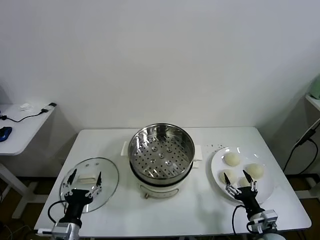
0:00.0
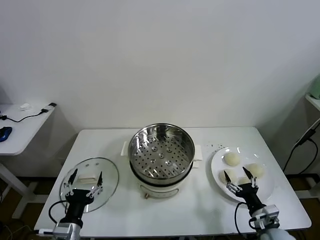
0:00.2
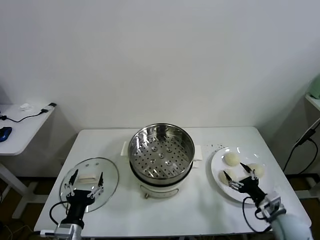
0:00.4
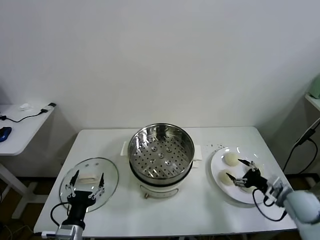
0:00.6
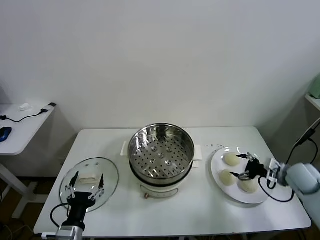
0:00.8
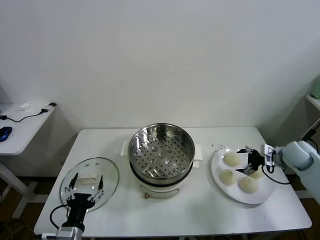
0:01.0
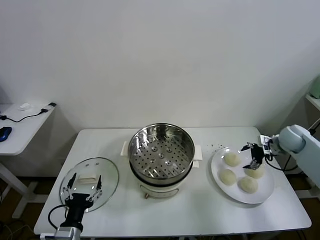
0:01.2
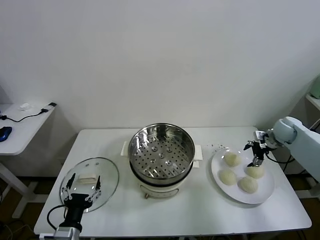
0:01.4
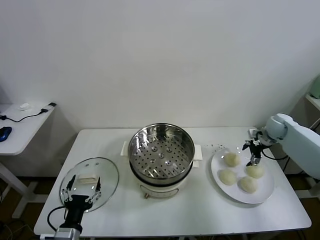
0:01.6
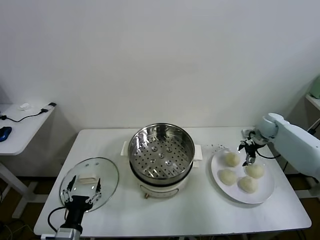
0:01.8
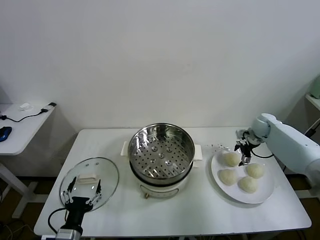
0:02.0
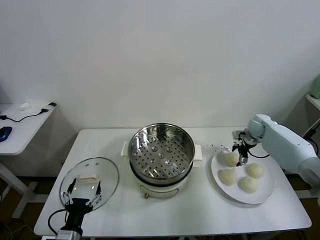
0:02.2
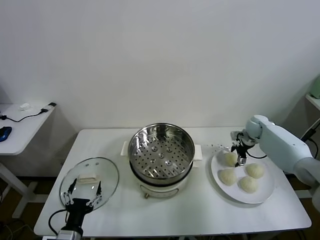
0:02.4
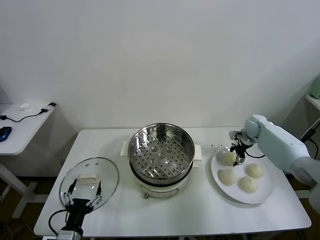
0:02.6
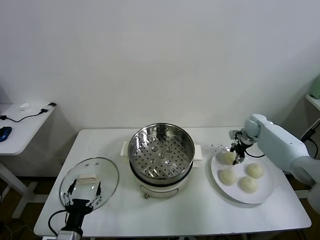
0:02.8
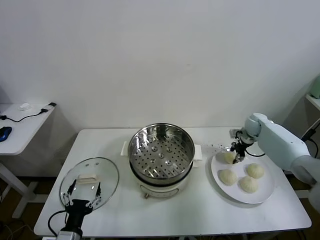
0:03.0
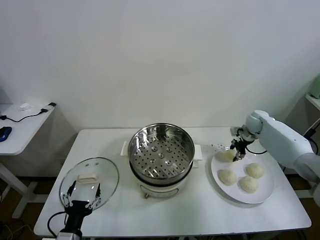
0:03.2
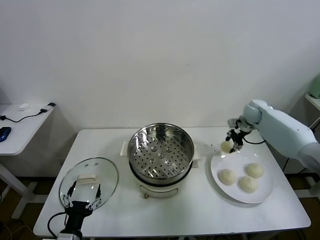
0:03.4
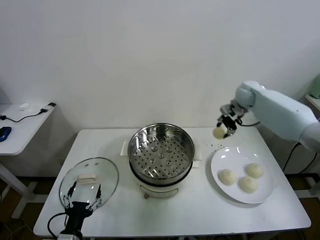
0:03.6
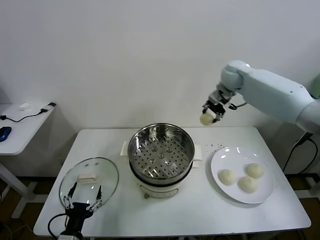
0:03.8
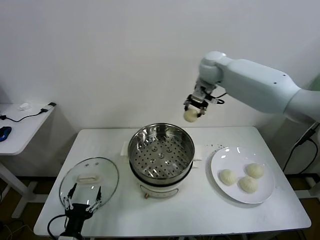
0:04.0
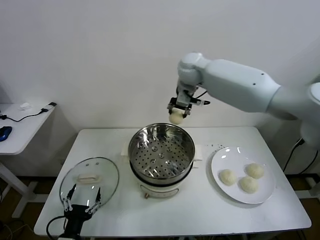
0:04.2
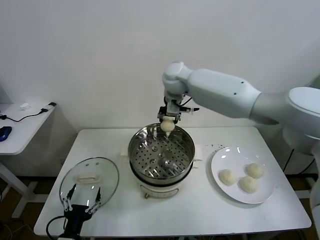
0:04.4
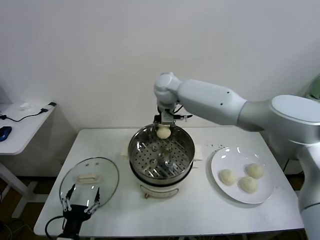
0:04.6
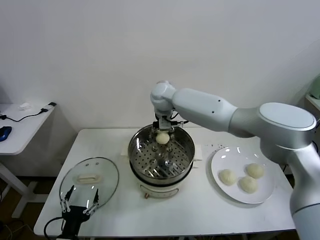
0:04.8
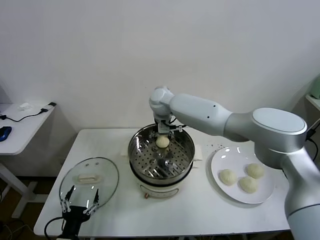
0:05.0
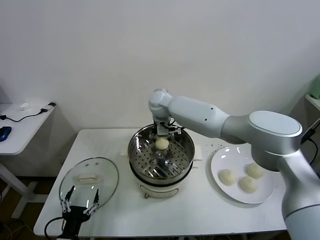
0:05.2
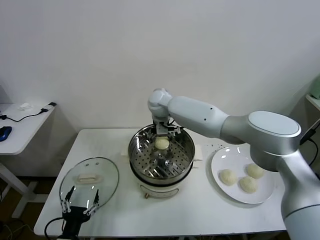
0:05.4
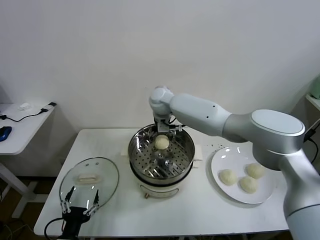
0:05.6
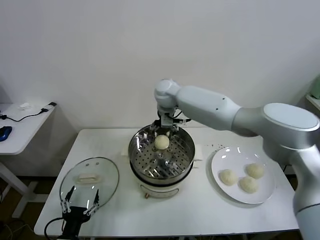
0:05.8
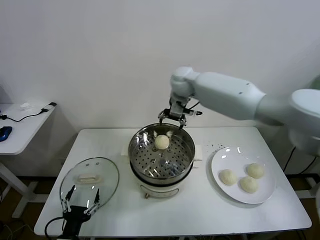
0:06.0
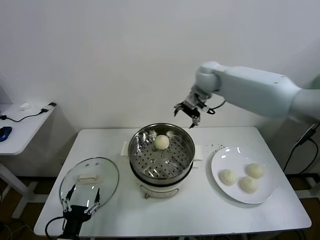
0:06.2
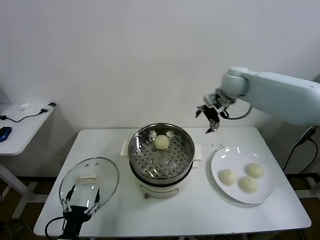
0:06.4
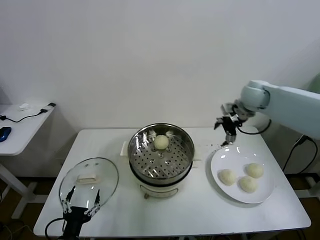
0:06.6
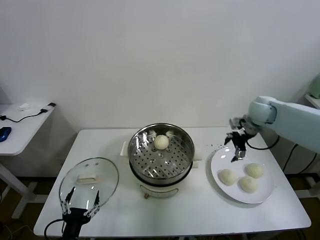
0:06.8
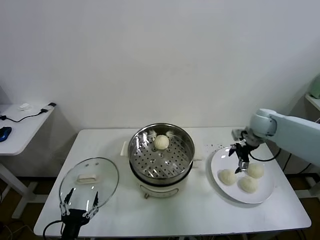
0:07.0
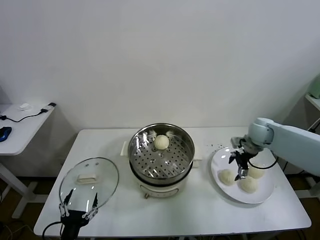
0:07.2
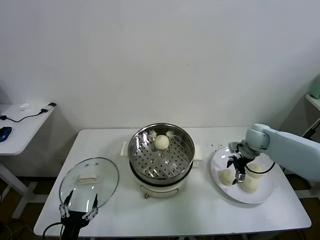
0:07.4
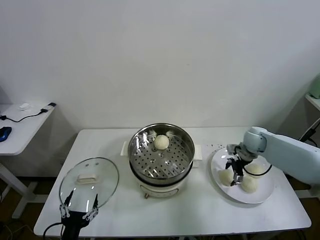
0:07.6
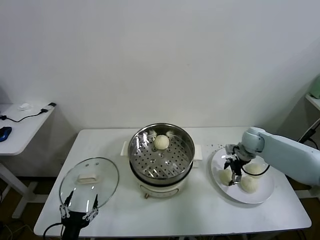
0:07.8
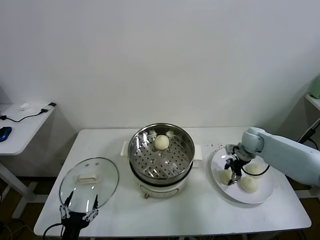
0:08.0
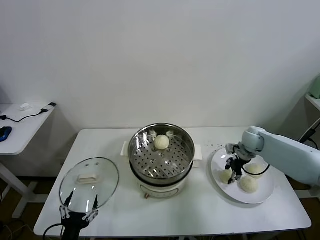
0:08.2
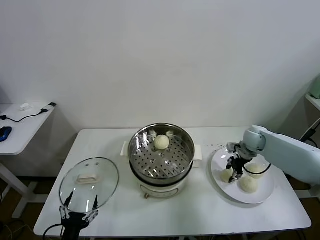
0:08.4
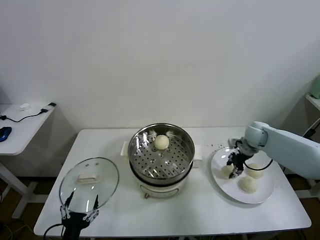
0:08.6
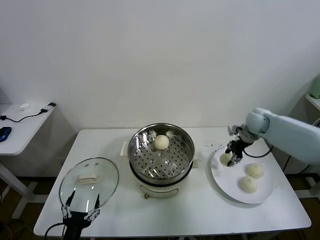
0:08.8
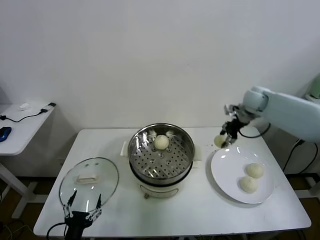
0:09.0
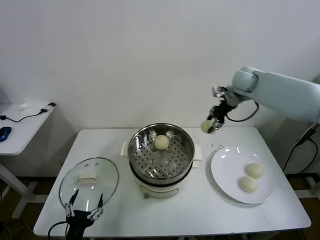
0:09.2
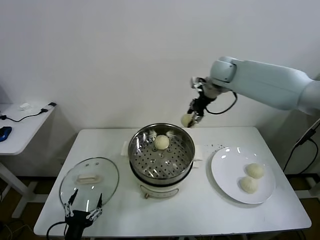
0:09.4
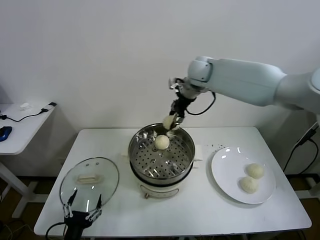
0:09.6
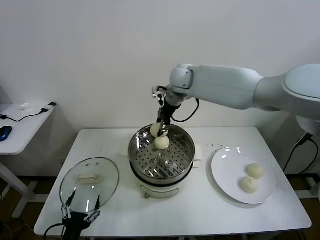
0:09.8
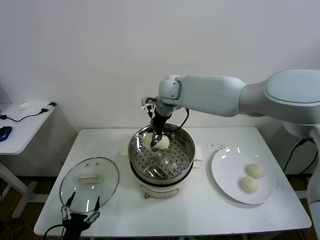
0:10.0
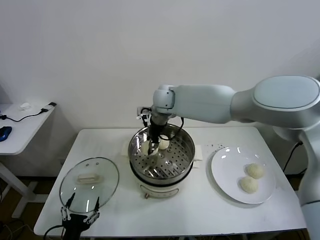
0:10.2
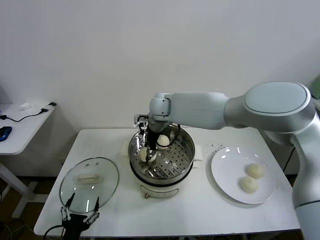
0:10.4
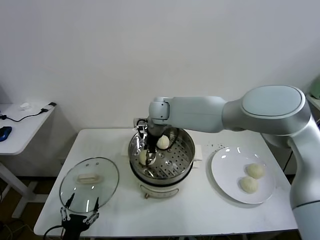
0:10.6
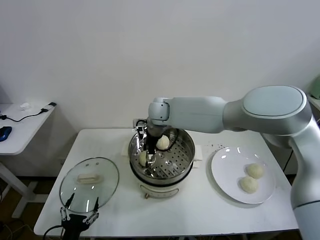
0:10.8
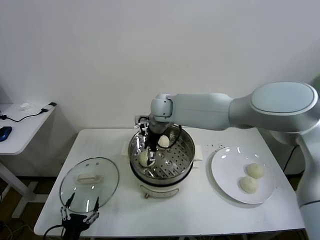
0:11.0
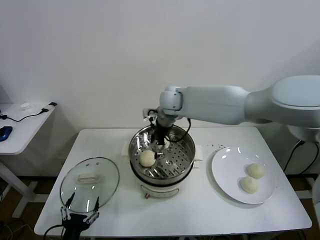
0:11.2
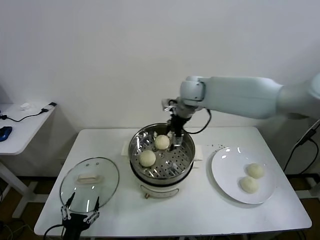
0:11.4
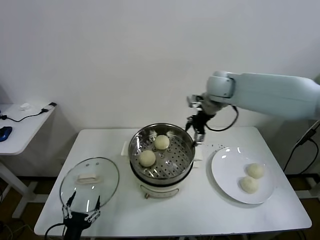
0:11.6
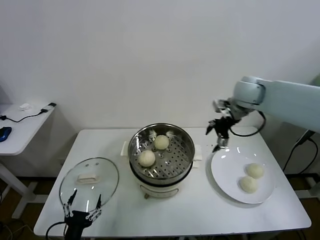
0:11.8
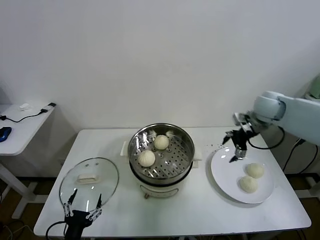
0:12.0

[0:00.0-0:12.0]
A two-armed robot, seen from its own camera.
Task of the whole recording: take steamed baozi put them in steamer.
Step, 0:00.0 to 0:02.8: Grasp the baozi in the plate with right gripper.
Step, 0:03.0 to 0:05.4: Place the baozi on the steamer with right gripper.
Step, 0:05.6 to 0:08.0: Grasp the baozi in the plate with right gripper.
Step, 0:08.4 to 0:11.2: Place the baozi on the steamer with right gripper.
0:01.6 to 0:03.0: The right gripper changes place by roughly 5 cm, and closes.
0:03.0 to 0:04.4: The right gripper travels to the left and upward by some 40 cm.
0:04.4 to 0:06.0: The right gripper moves to the right, about 10 cm, and opens up.
0:06.0 to 0:07.6: The right gripper travels to the right and downward by roughly 35 cm.
0:07.6 to 0:09.0: The right gripper shifts about 20 cm upward and forward, and closes.
0:09.0 to 0:10.4: The right gripper shifts roughly 35 cm to the left.
0:10.4 to 0:12.0: The right gripper is displaced to the right by approximately 35 cm, and opens.

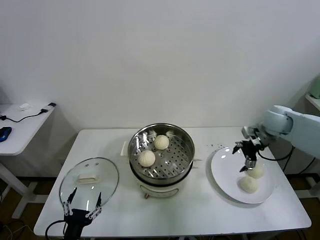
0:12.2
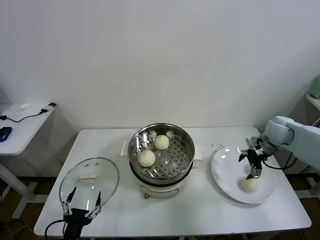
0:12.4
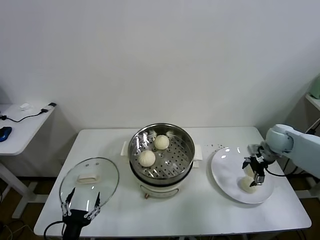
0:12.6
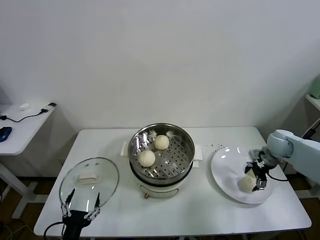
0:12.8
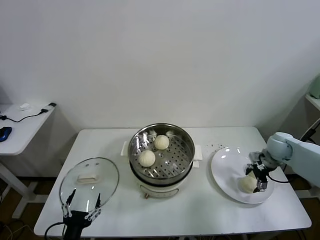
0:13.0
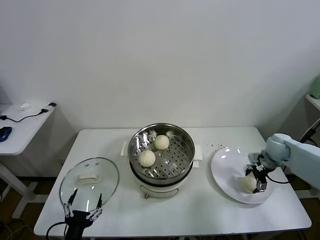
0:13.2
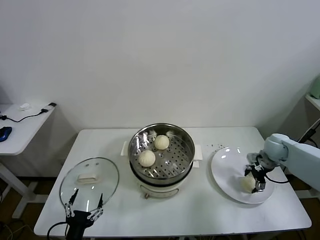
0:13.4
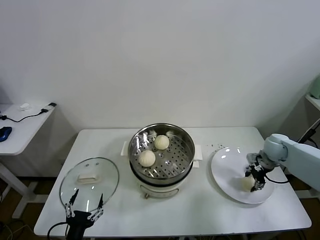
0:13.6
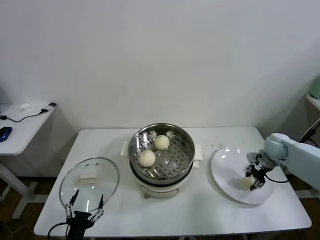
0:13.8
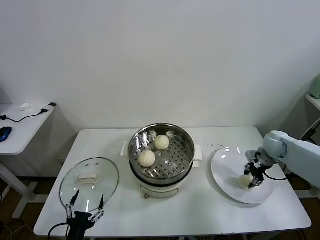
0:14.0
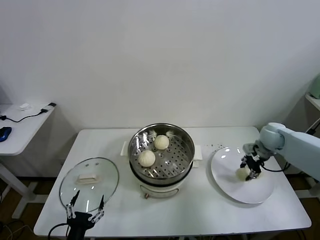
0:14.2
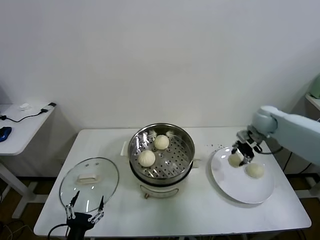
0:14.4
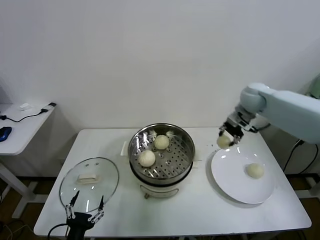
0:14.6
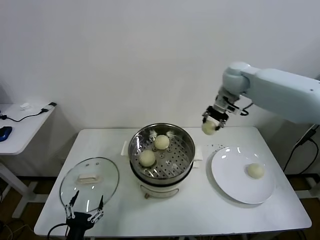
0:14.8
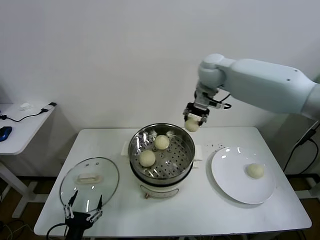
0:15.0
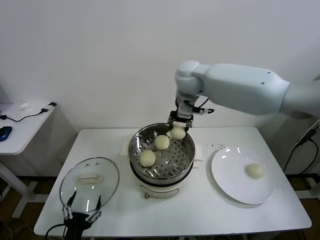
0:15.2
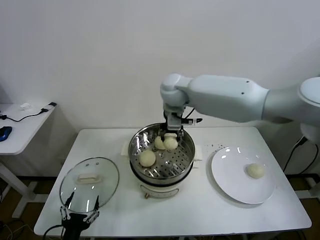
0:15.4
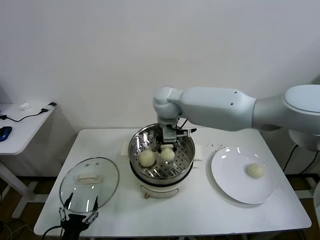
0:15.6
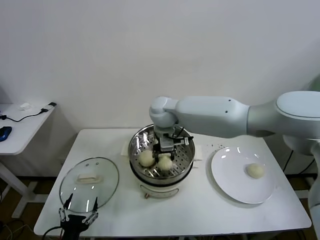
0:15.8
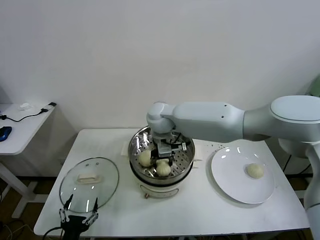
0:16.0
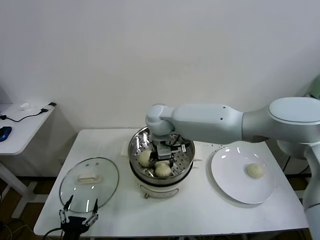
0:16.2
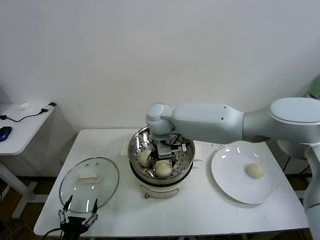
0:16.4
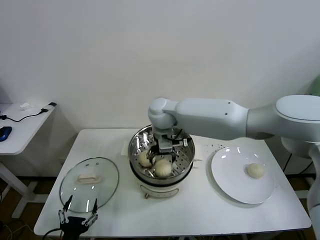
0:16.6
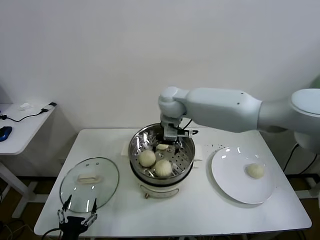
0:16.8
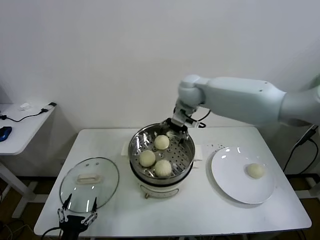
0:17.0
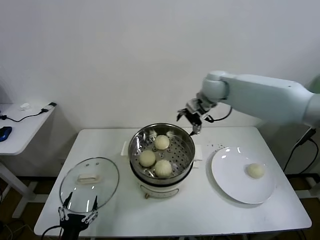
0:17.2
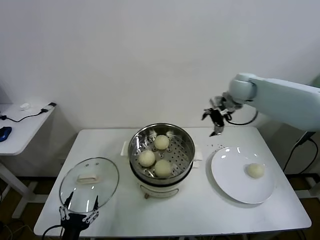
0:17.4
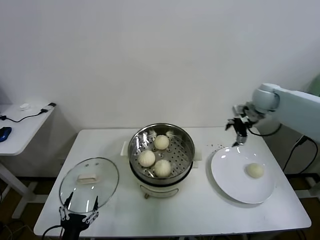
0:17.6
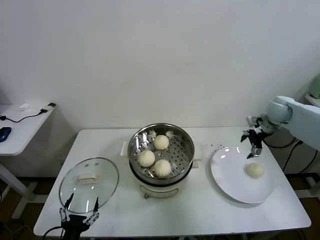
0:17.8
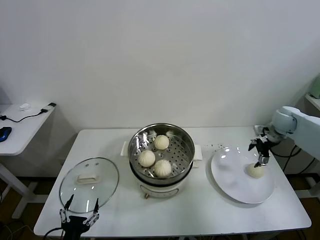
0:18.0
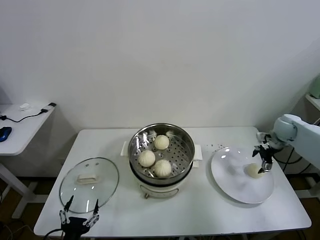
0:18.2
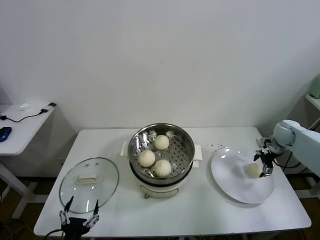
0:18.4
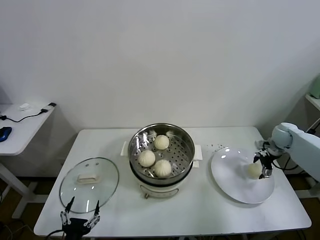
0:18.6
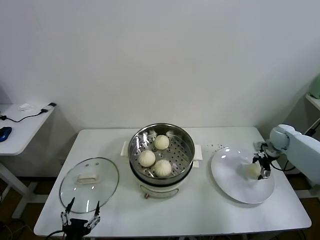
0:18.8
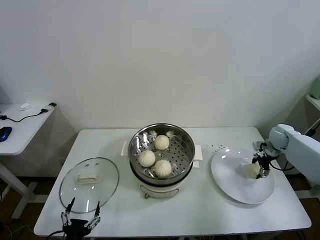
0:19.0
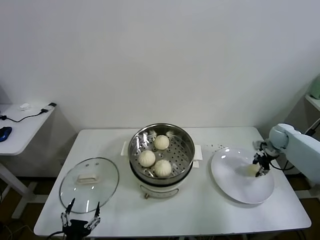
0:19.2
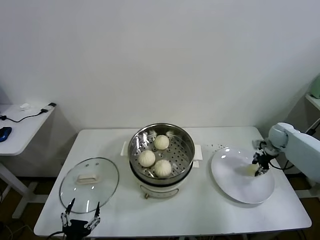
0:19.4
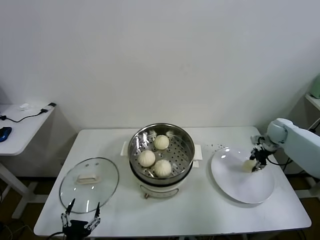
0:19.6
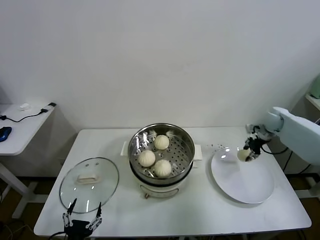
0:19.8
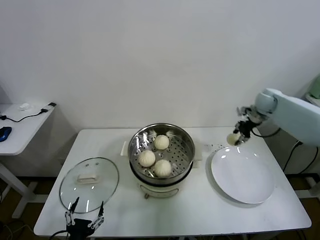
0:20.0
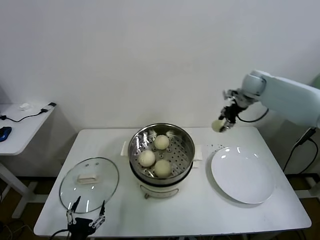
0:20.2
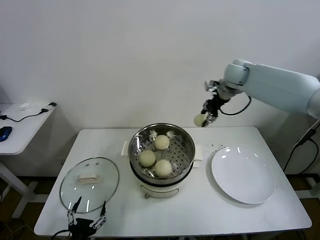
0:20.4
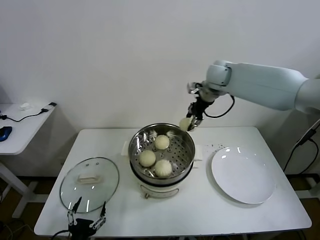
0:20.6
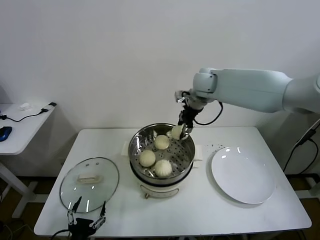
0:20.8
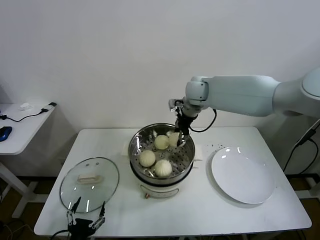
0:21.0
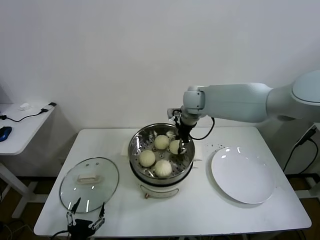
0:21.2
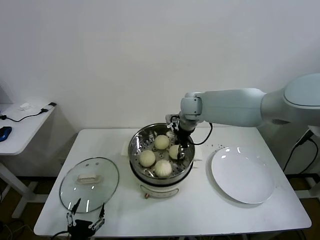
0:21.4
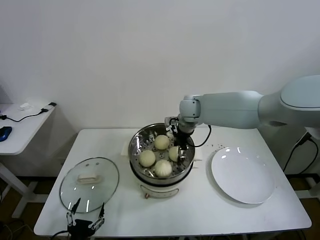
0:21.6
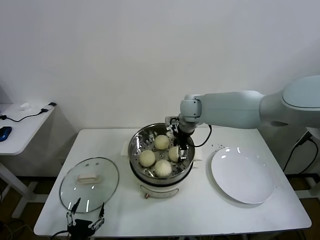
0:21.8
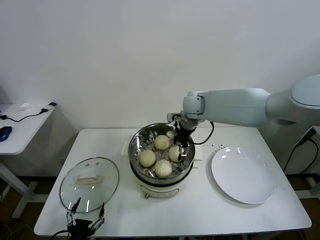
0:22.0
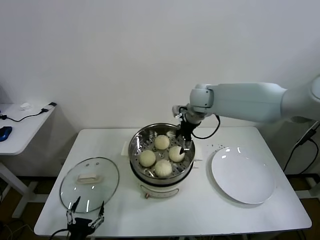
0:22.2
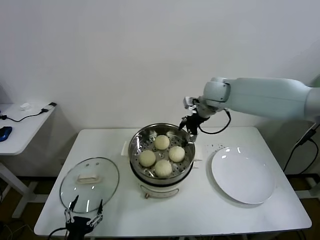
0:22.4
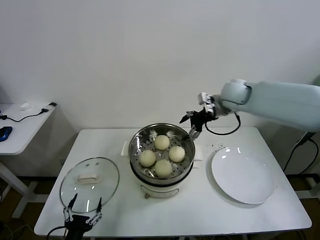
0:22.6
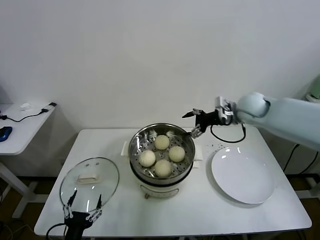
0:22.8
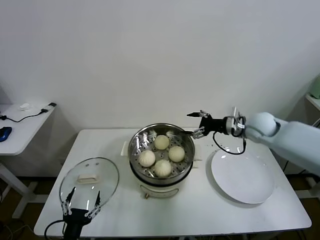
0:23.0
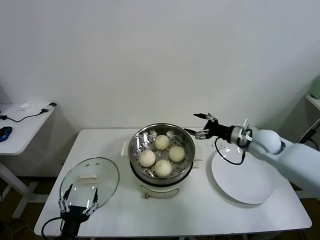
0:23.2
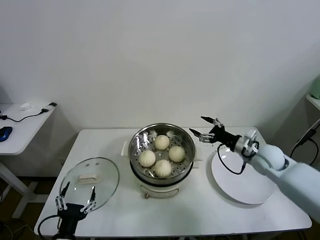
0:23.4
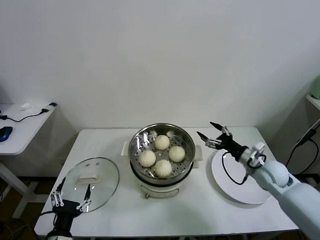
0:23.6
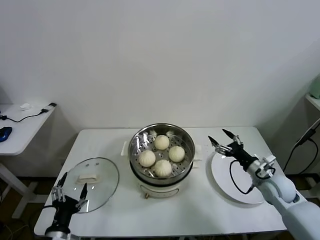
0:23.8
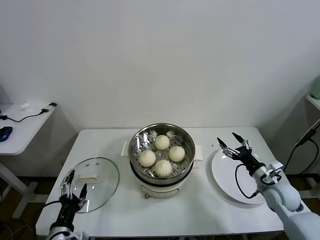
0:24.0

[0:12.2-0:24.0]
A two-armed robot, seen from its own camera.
Task of the whole recording: take steamed baozi put them in steamer.
Step, 0:12.2 to 0:13.4: Grasp the baozi in the plate with right gripper.
Step, 0:13.8 to 0:16.6: Place the baozi on the steamer with right gripper.
Step, 0:16.8 to 0:19.0: Grasp the baozi in the plate with right gripper.
Step, 0:19.2 to 0:22.0: Place the baozi on the steamer with right gripper.
0:12.2 to 0:13.6: The right gripper moves downward, approximately 10 cm, and closes up.
0:13.6 to 0:15.2: The right gripper goes some 40 cm to the left and upward.
0:15.2 to 0:16.6: The right gripper is displaced downward and to the left by approximately 10 cm, and opens its fingers.
0:16.6 to 0:18.2: The right gripper goes some 50 cm to the right.
0:18.2 to 0:19.6: The right gripper closes.
0:19.6 to 0:21.0: The right gripper shifts roughly 40 cm to the left and upward.
0:21.0 to 0:22.6: The right gripper is displaced to the right by roughly 10 cm, and opens up.
0:22.6 to 0:24.0: The right gripper is displaced downward, backward and to the right by some 35 cm, while the left gripper moves about 5 cm.
